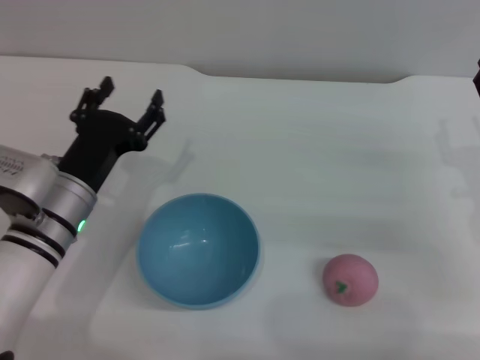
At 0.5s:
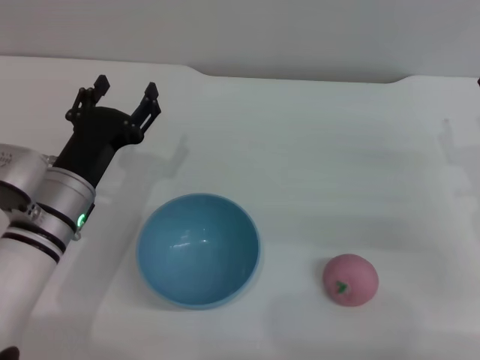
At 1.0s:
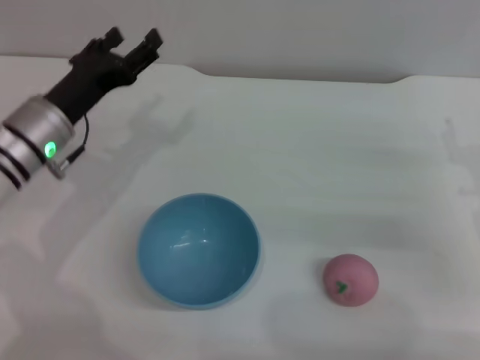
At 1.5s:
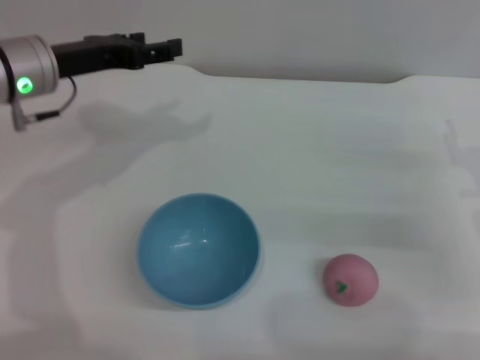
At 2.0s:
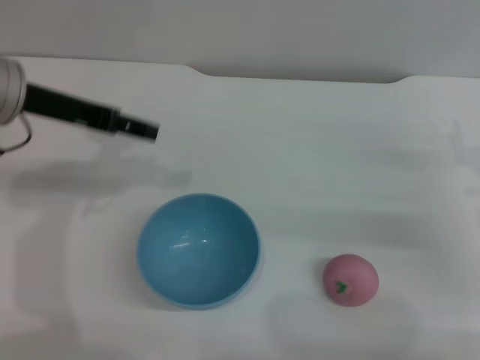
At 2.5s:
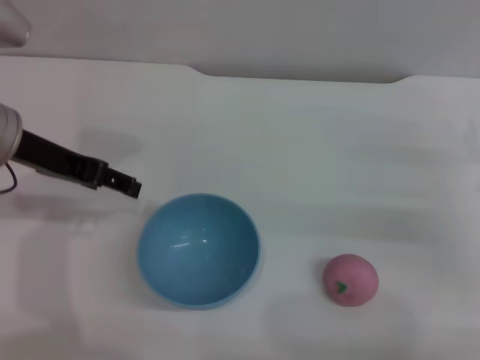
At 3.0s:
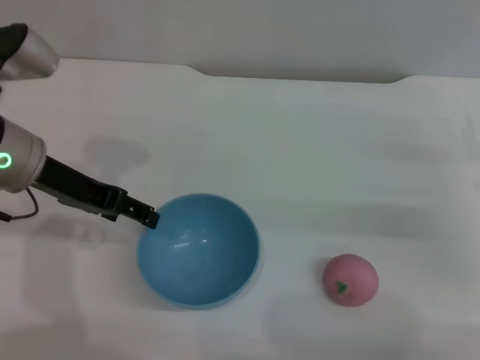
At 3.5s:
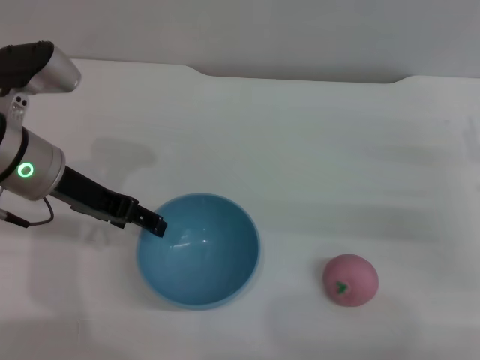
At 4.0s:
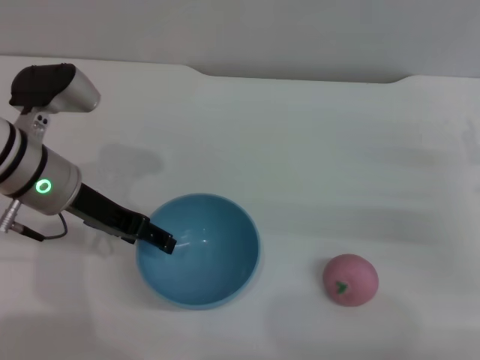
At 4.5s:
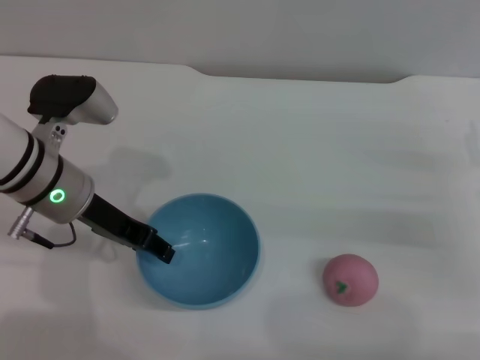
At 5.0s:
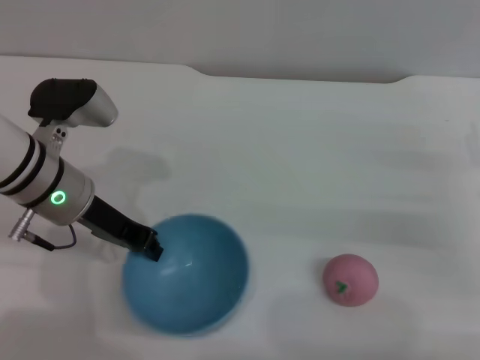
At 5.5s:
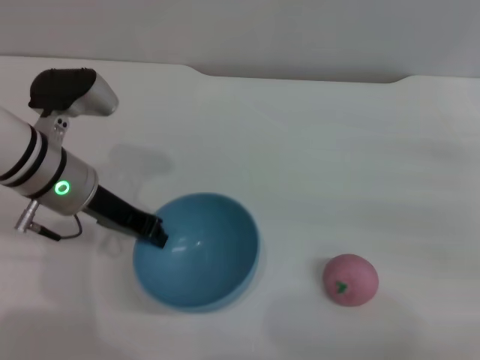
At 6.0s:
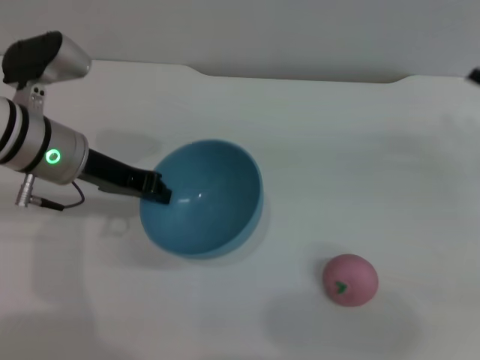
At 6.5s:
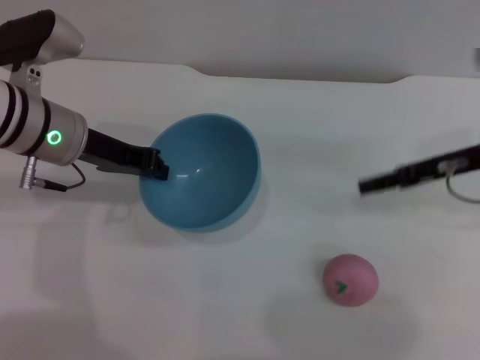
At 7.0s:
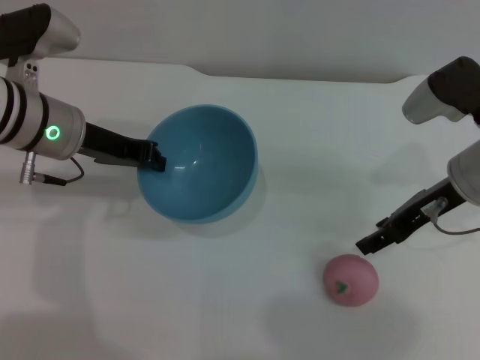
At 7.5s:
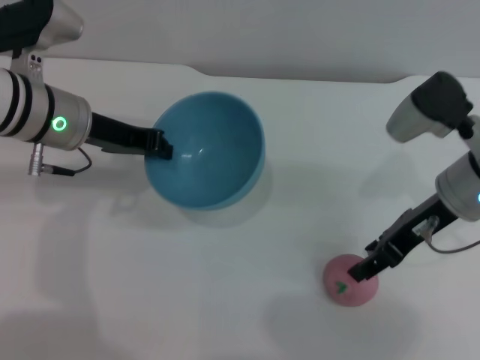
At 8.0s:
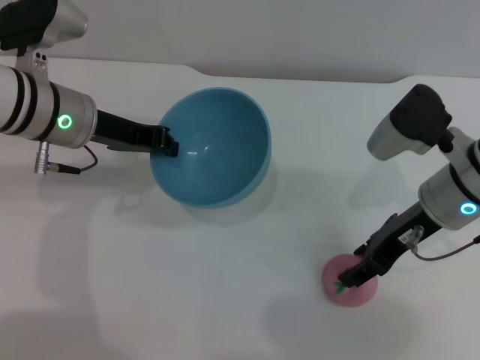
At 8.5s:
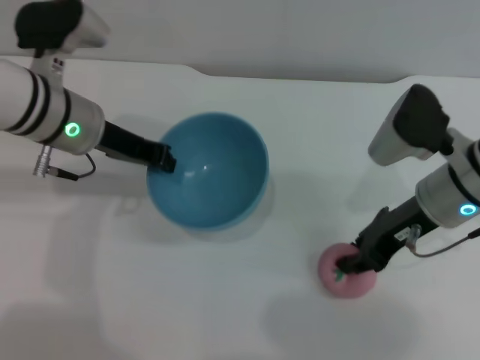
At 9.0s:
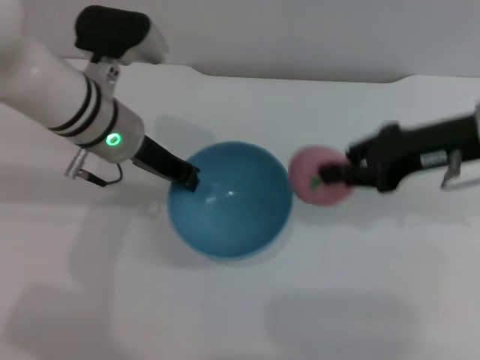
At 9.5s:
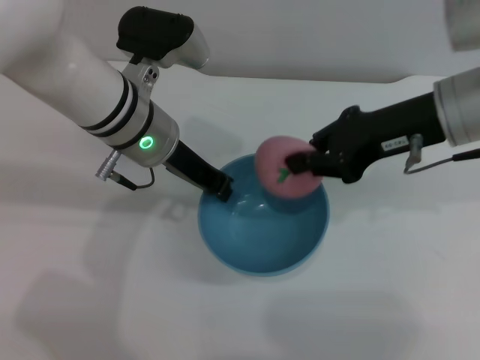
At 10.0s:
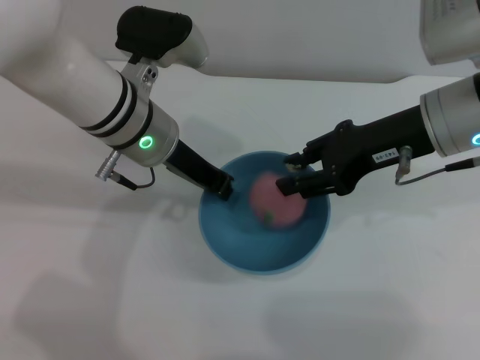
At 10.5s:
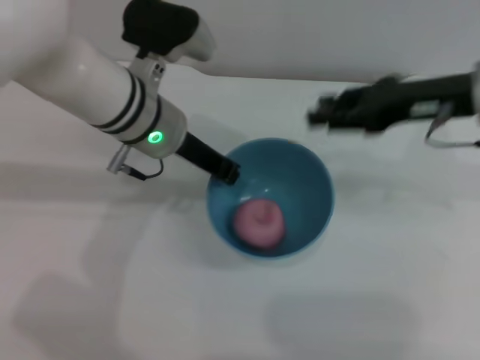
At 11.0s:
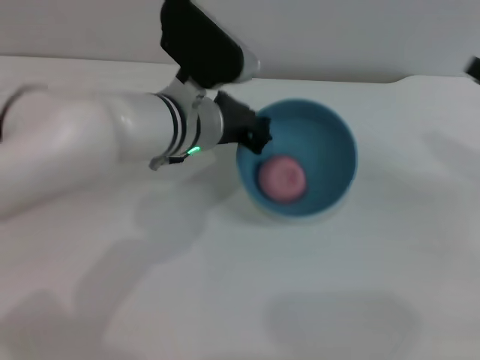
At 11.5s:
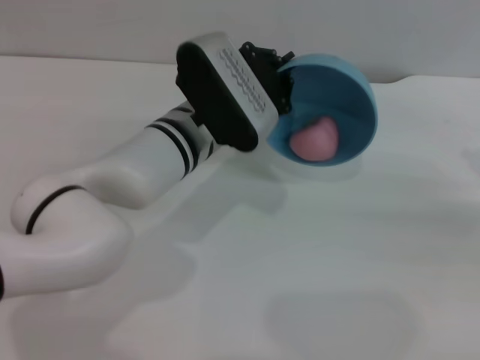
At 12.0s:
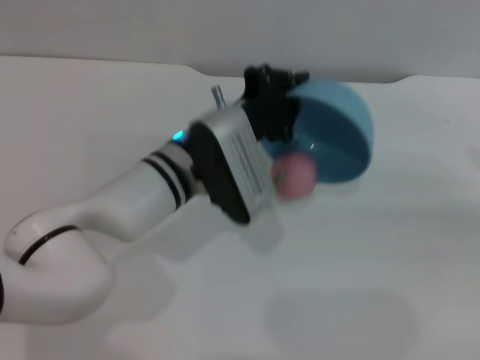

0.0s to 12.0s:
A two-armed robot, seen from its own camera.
Task of the whole recording: put the peach into the blue bowl and pour it out repeatedly.
Step, 0.0s to 6.0s: Pick up the bowl with the left gripper.
Step, 6.5s to 8.5s: Pick up the peach with the right gripper.
Step, 9.0s to 10.0s: Place the peach into the bowl.
0.0s to 2.0s: The left gripper is displaced upward by approximately 15 cm.
2.0s to 4.0s: The left gripper shifts approximately 10 cm downward.
4.0s to 6.0s: The right gripper goes about 5 cm forward. The left gripper closes up.
6.0s to 8.0s: The right gripper travels to the left by roughly 15 cm.
8.0s to 10.0s: The left gripper moves to the right, about 10 cm, while the right gripper shifts some 10 cm upward, and closes up.
10.0s to 12.0s: The right gripper goes approximately 20 cm to the right and downward, while the left gripper heads downward, covering approximately 5 cm.

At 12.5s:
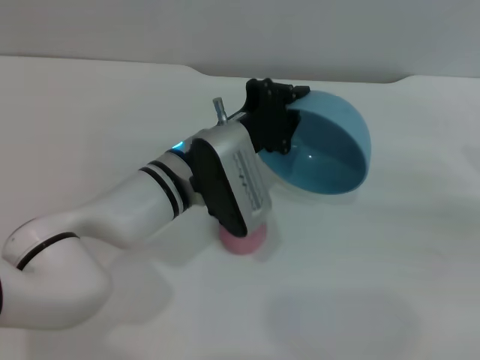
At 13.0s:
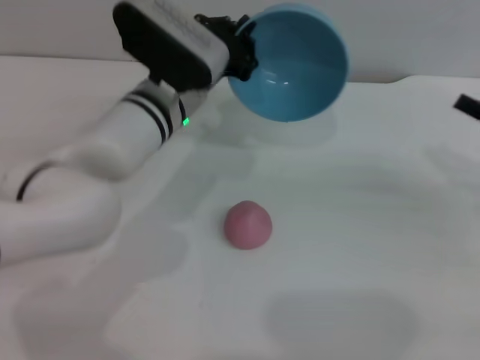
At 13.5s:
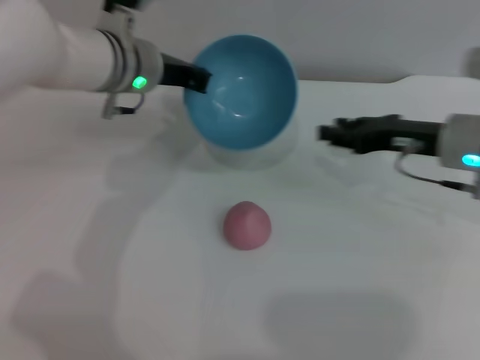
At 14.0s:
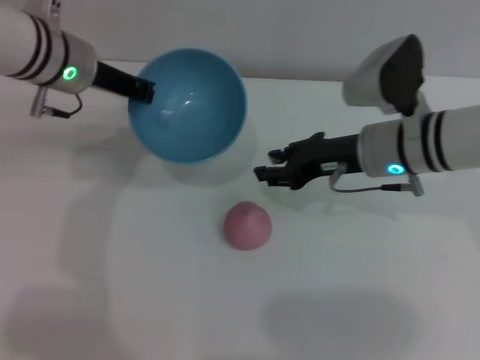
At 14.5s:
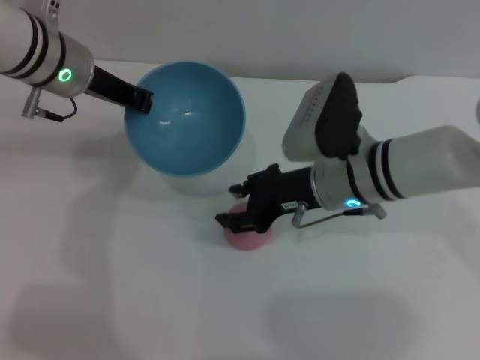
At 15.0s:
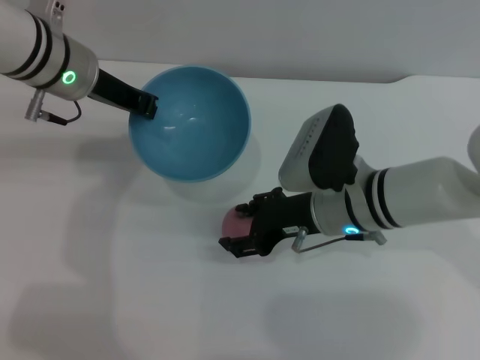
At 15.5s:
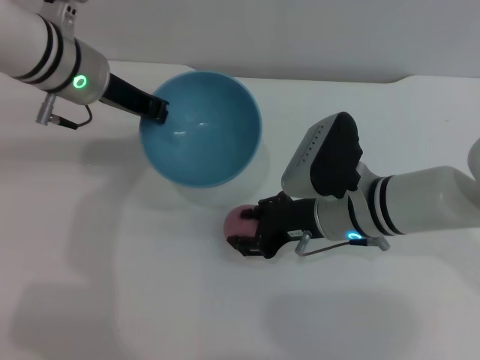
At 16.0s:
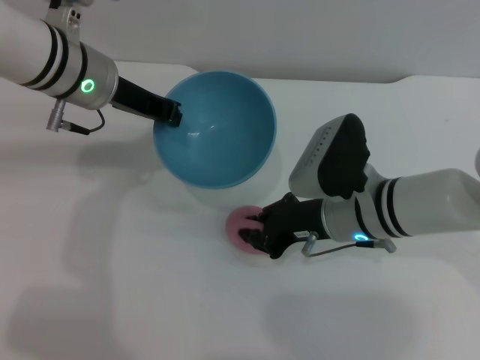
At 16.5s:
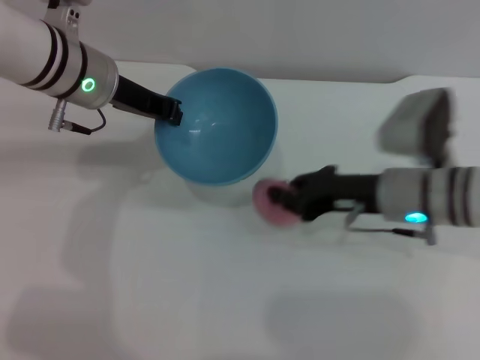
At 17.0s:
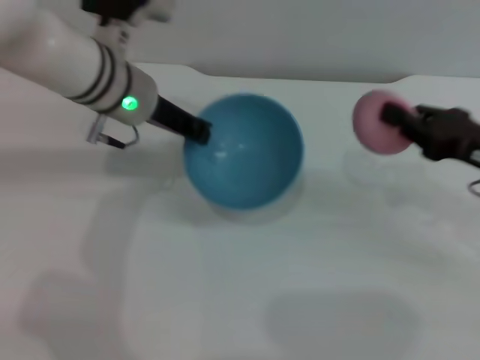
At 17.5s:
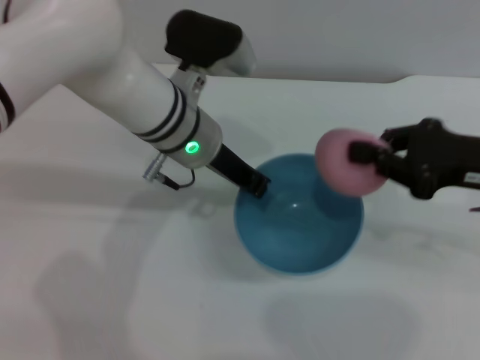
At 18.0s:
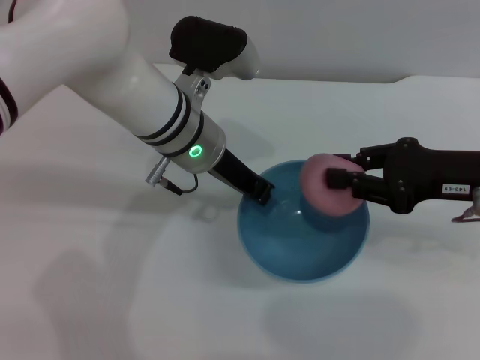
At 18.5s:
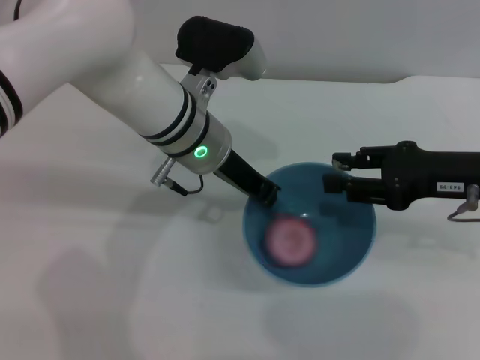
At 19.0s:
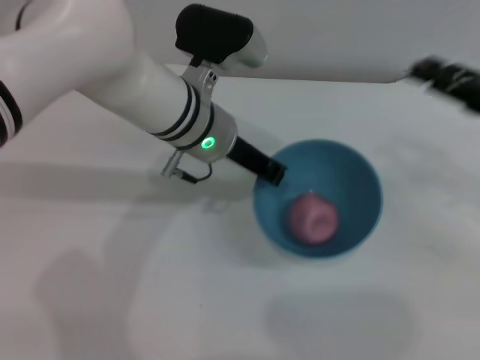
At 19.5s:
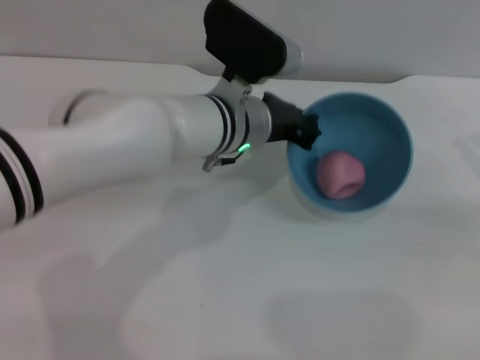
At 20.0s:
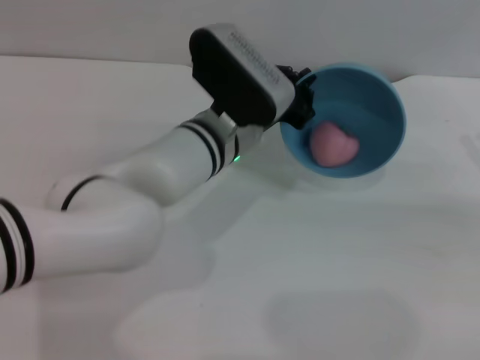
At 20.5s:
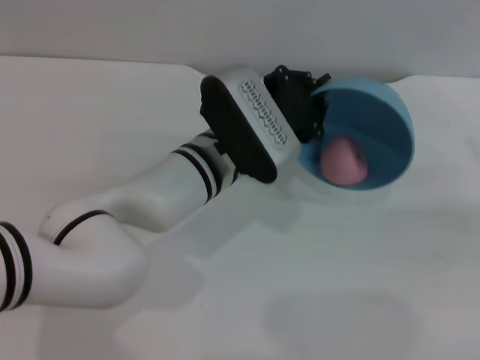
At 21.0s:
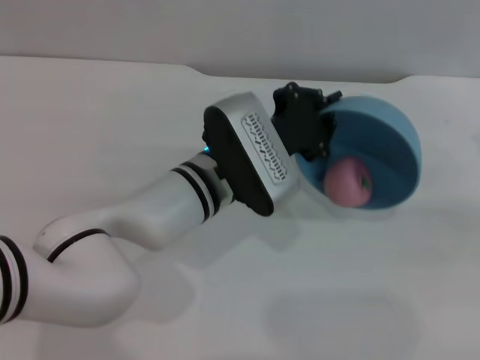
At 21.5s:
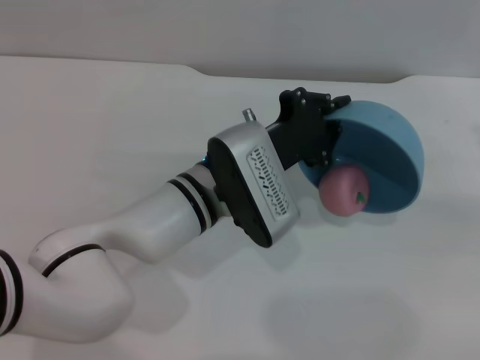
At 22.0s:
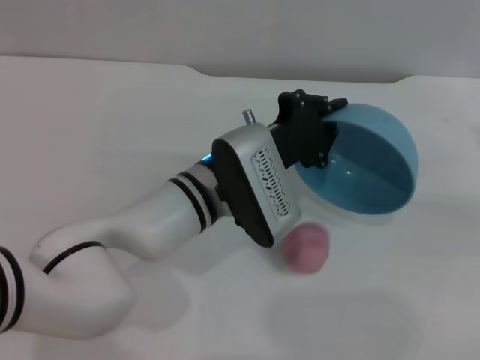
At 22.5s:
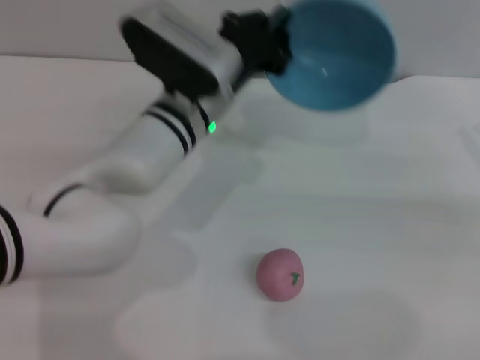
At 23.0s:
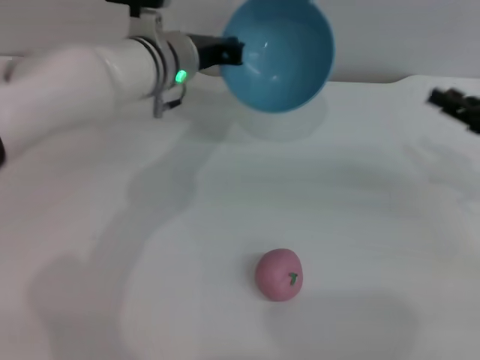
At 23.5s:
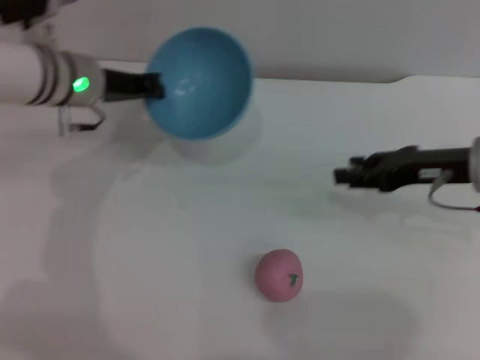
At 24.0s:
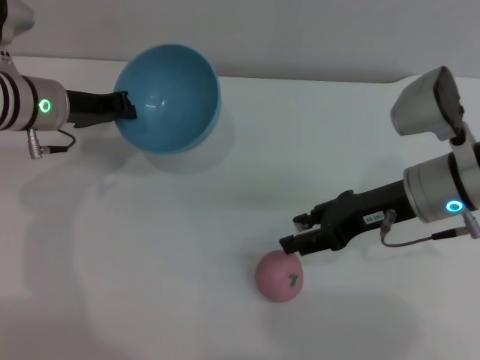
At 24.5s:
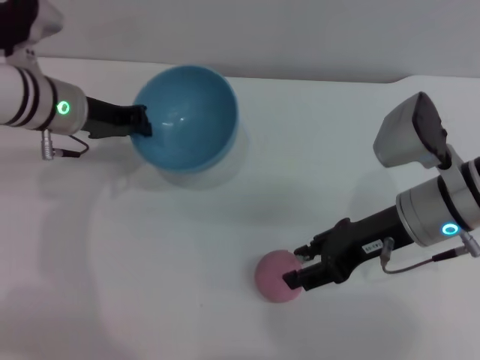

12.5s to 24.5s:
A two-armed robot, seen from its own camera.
Task of the whole recording: put the peach into the blue bowl and pour it out repeatedly.
Step, 13.0s to 16.5s: Pick up the peach with the right gripper.
Step, 17.0s to 18.5s: Place the peach into the bowl.
Step, 19.0s to 22.0s: Pour the peach out of bowl.
12.5s to 14.5s: The left gripper heads to the left, upward and forward, covering some 20 cm; the right gripper is displaced to the left by roughly 30 cm.
14.5s to 16.5s: The right gripper travels to the right by about 5 cm, and closes its fingers.
16.5s to 18.5s: The right gripper goes some 10 cm to the right and upward, and opens its fingers; the left gripper moves to the right, approximately 10 cm.
18.5s to 20.5s: The left gripper heads downward, covering roughly 5 cm; the right gripper heads to the right, covering roughly 15 cm.
22.5s to 24.5s: Both grippers travel together to the left, approximately 15 cm.

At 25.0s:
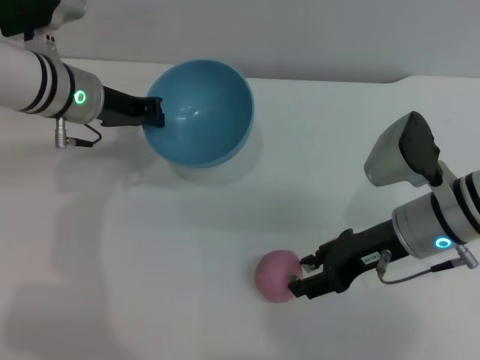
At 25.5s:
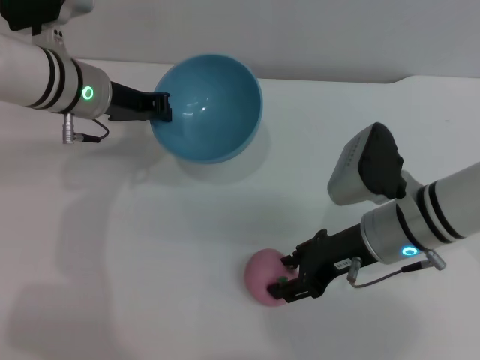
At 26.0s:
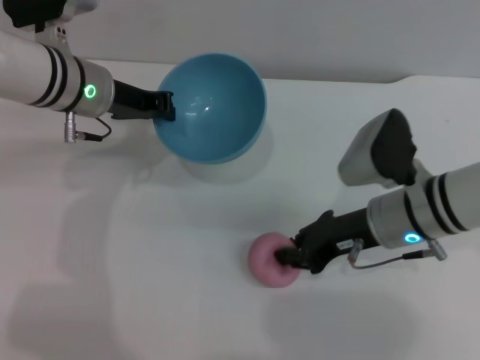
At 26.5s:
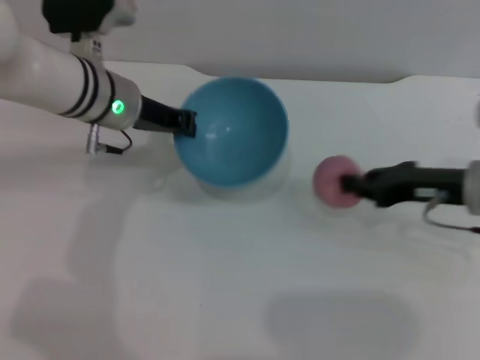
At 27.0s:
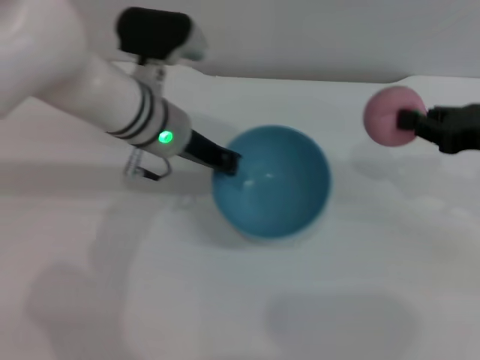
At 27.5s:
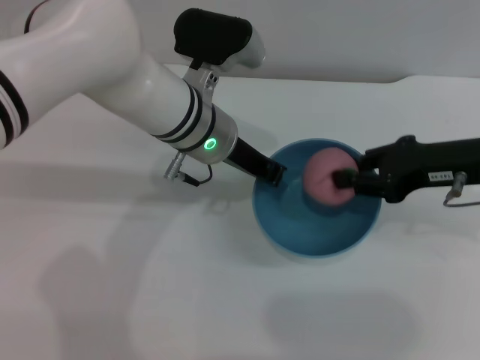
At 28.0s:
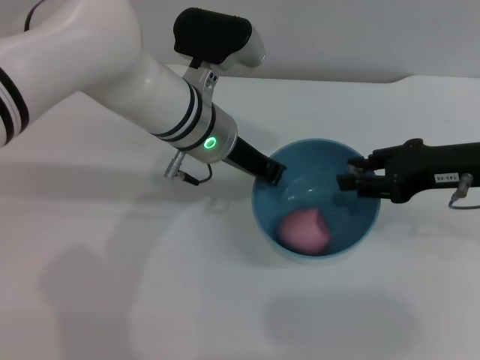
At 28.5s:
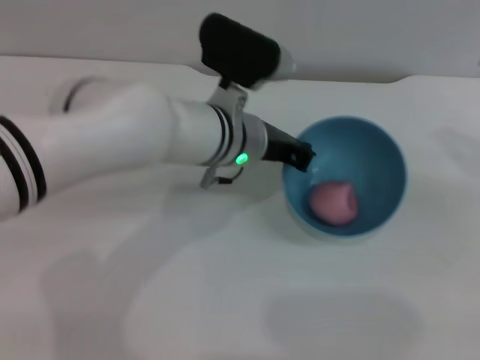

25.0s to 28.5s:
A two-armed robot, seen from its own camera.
Task of the whole recording: put the peach into the blue bowl and pour it out repeatedly.
Step, 27.0s to 28.0s: Place the peach into the bowl.
25.0s to 27.0s: The left gripper moves to the right, roughly 10 cm. Meanwhile the right gripper travels to the right and upward by some 15 cm, and closes its fingers.
27.0s to 28.5s: The grippers both shift to the right by approximately 5 cm. The right gripper opens up.
